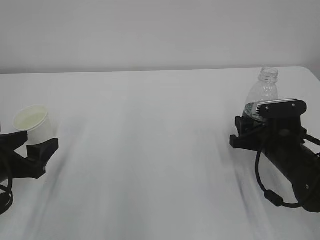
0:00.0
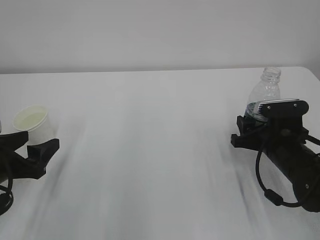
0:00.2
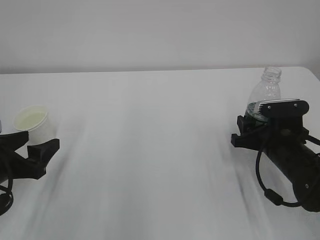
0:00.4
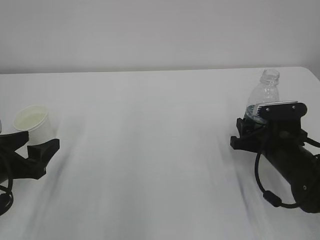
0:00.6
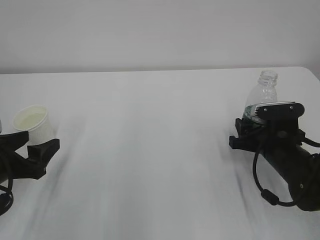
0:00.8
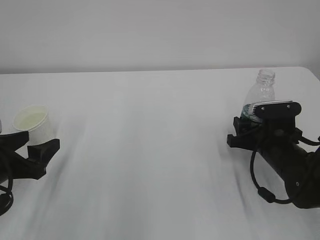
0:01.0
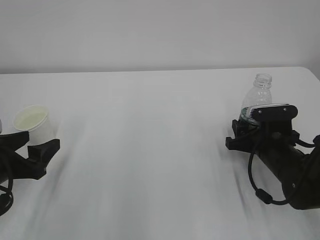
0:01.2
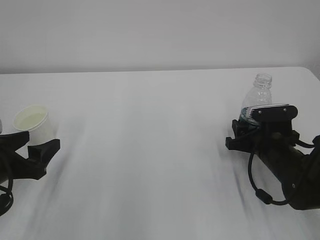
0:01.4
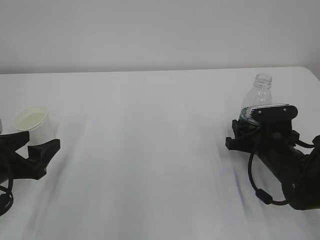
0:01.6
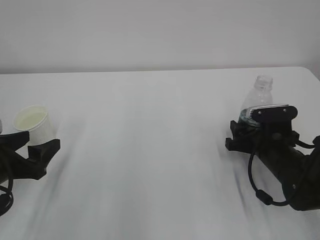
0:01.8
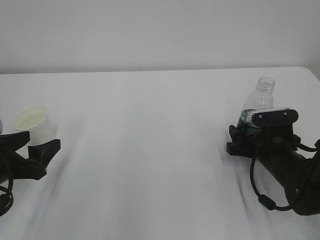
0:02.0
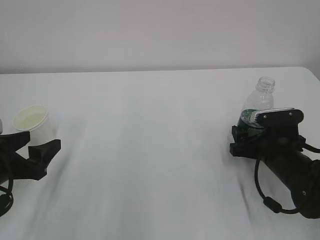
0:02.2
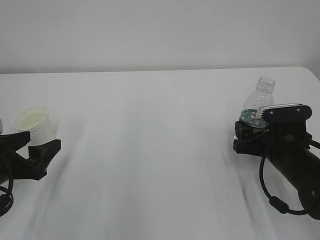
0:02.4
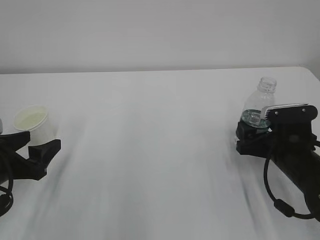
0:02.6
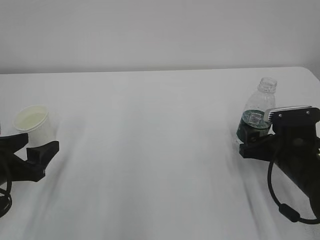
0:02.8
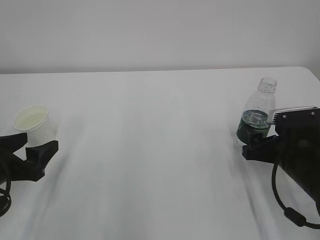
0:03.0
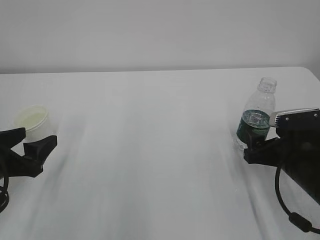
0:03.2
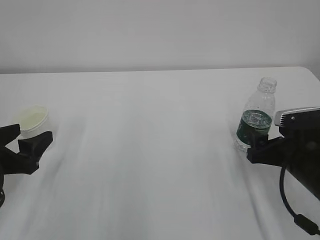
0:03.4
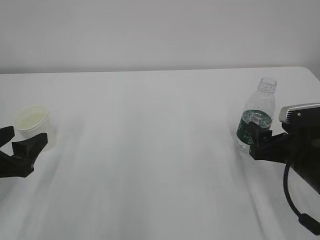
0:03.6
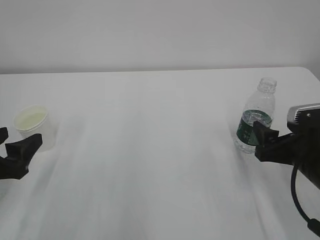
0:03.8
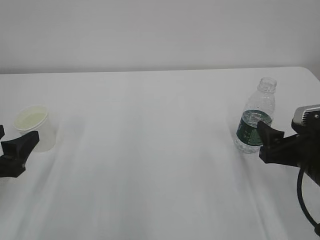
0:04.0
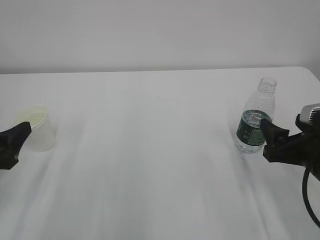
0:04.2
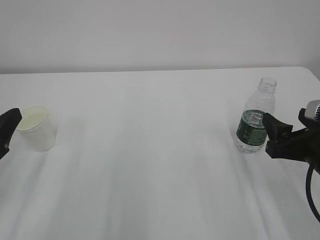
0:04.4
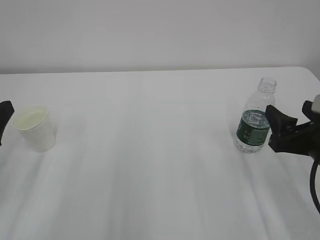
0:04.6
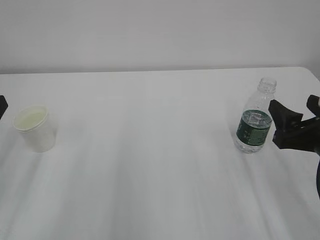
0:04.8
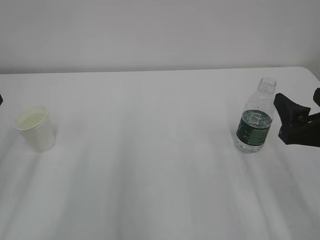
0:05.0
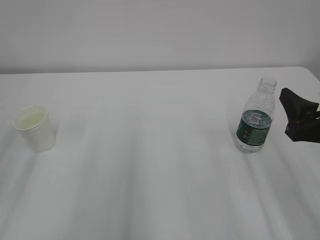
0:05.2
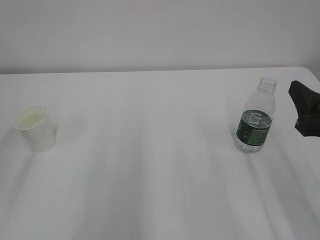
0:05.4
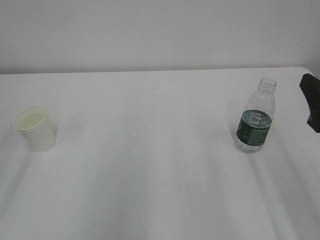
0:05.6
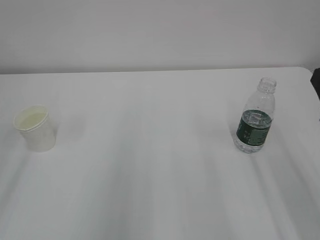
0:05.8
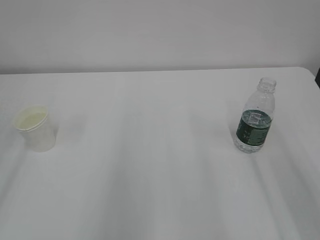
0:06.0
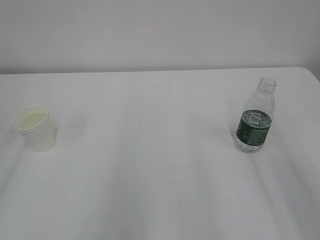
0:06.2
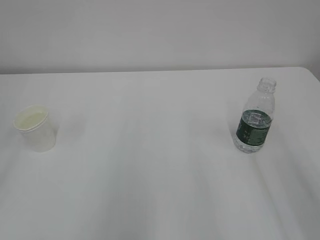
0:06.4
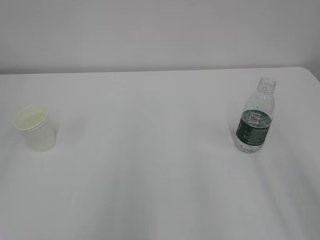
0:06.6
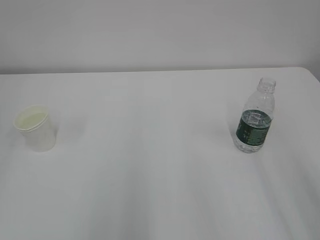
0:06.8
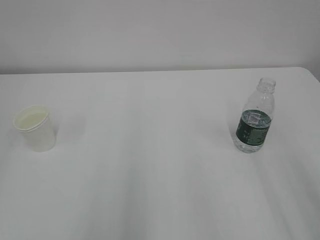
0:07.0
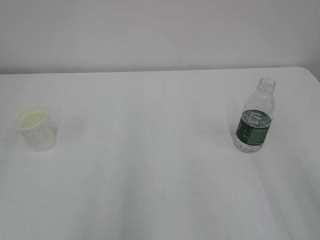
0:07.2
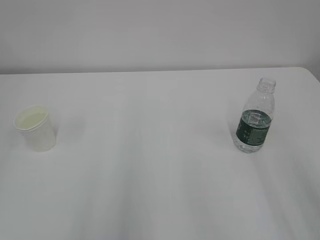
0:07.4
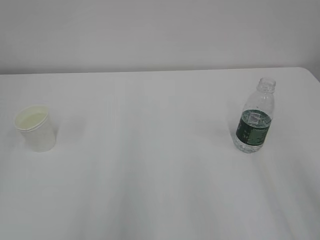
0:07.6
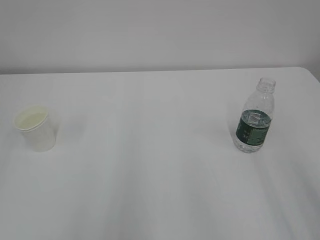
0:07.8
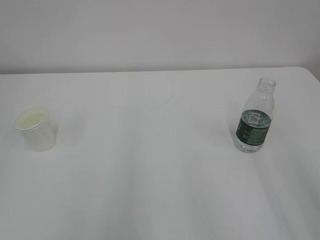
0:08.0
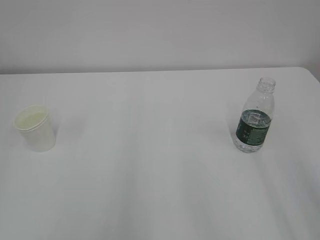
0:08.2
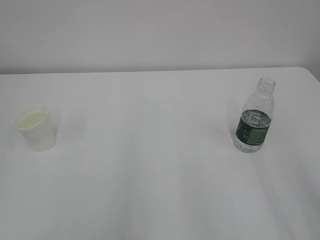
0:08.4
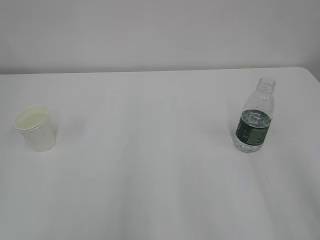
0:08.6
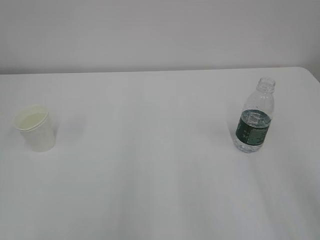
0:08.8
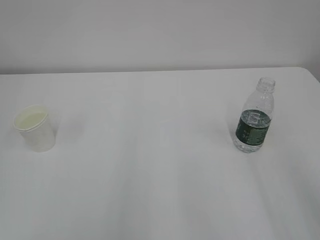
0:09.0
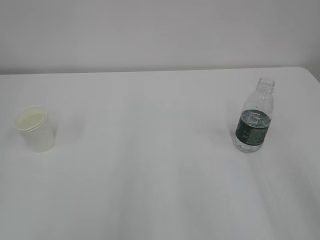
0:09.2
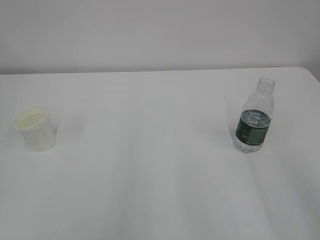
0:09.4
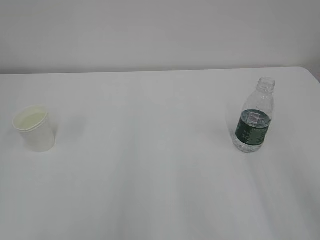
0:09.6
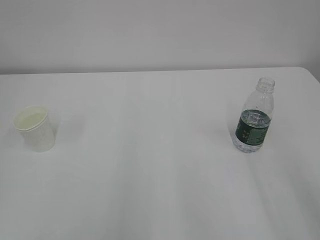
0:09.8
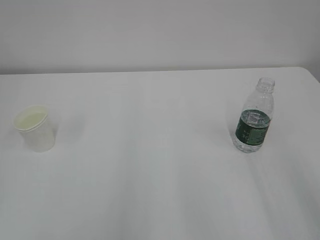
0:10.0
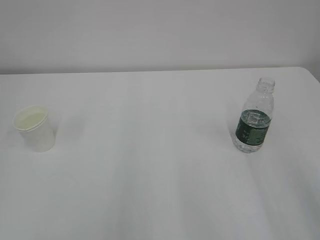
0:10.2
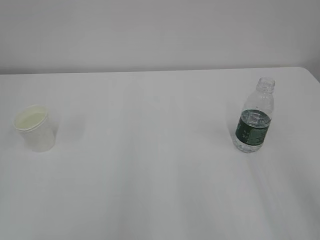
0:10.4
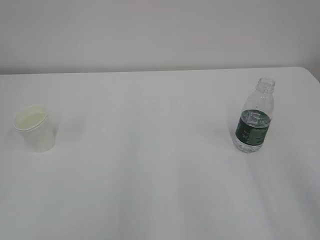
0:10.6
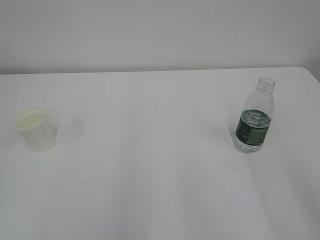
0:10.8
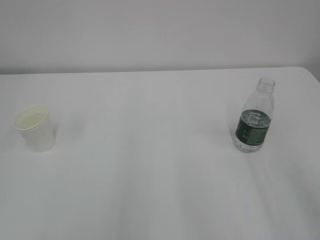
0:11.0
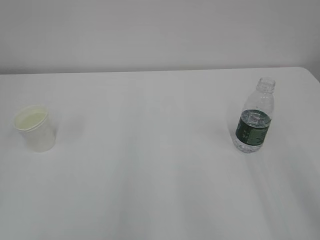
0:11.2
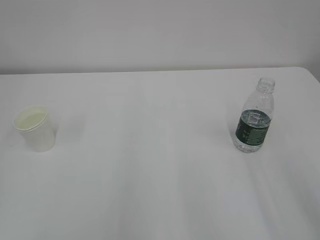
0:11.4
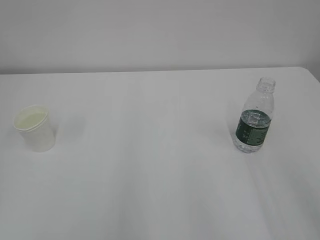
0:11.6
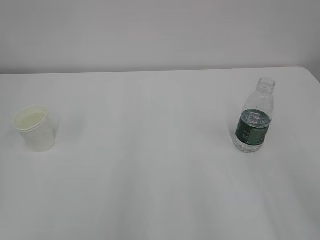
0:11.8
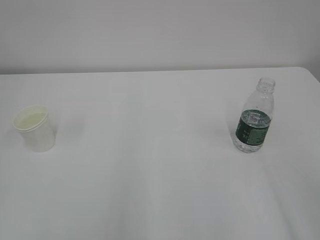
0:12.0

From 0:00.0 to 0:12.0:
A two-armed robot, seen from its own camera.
From 0:00.0 to 0:01.6: There are only small adjustments of the grippers.
From 0:01.6 to 0:03.0: The right gripper changes place by roughly 5 cm, and opens.
From 0:03.0 to 0:04.4: Both grippers move upward, about 5 cm.
From 0:04.4 to 0:06.0: The two grippers go roughly 15 cm upward and backward.
From 0:09.0 to 0:10.4: Both grippers stay about where they are.

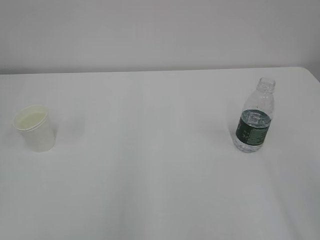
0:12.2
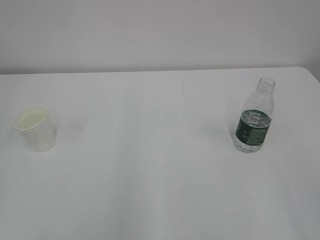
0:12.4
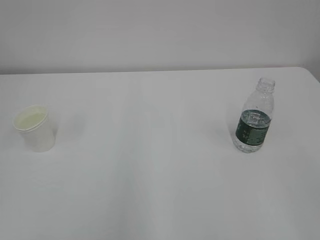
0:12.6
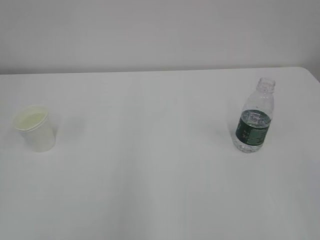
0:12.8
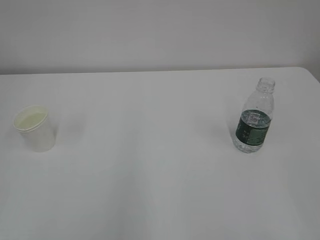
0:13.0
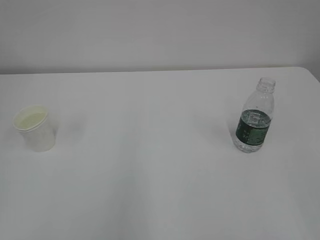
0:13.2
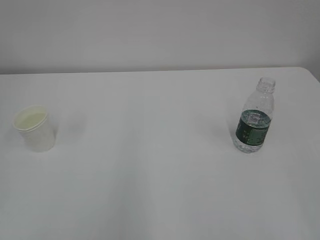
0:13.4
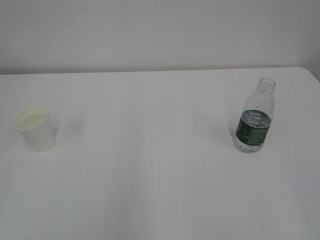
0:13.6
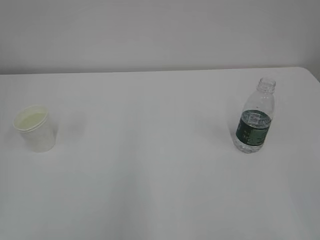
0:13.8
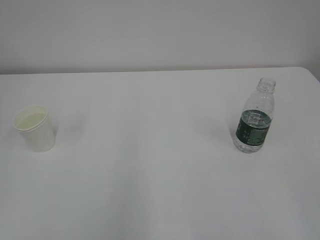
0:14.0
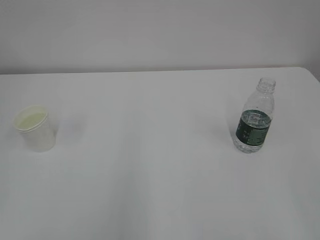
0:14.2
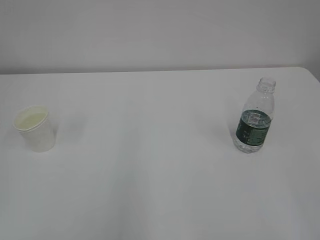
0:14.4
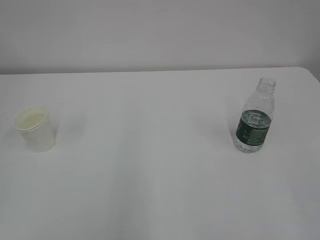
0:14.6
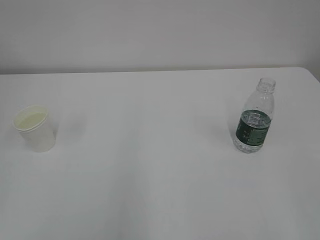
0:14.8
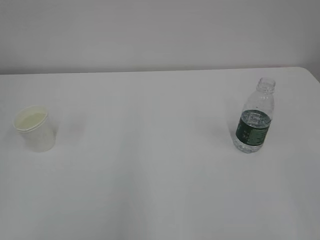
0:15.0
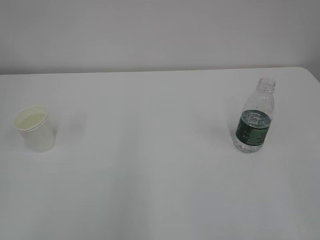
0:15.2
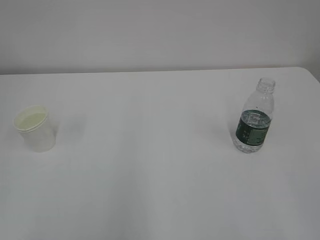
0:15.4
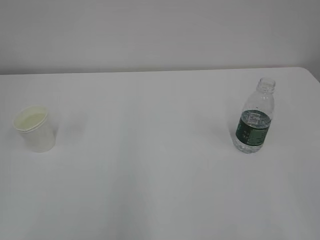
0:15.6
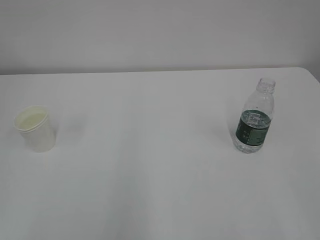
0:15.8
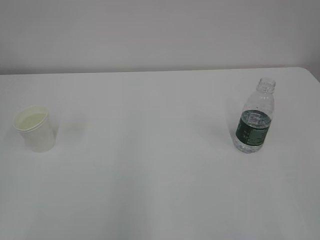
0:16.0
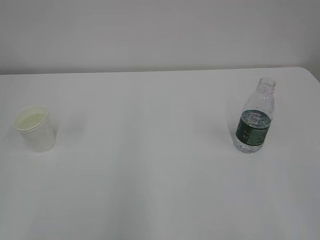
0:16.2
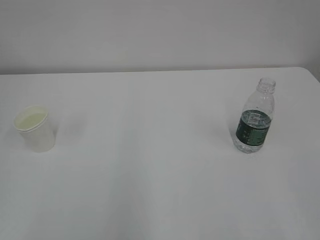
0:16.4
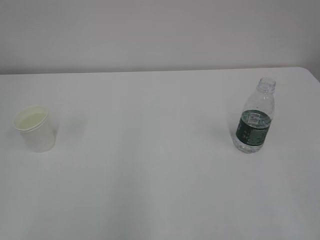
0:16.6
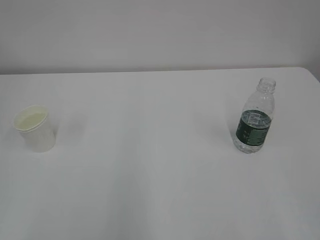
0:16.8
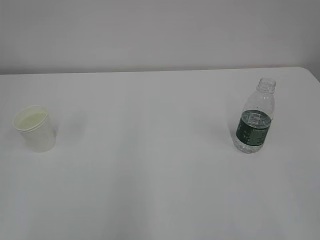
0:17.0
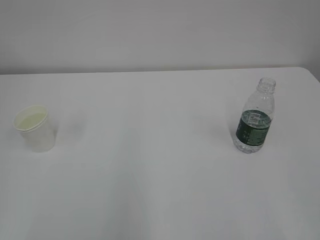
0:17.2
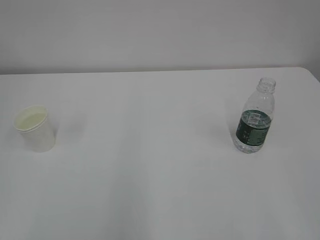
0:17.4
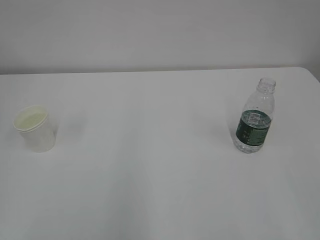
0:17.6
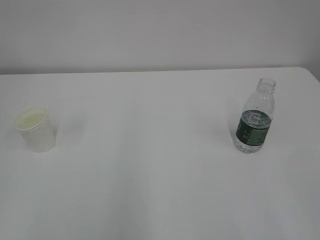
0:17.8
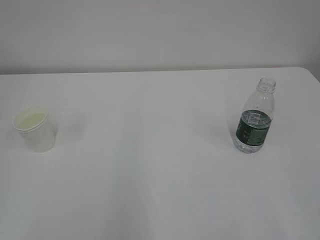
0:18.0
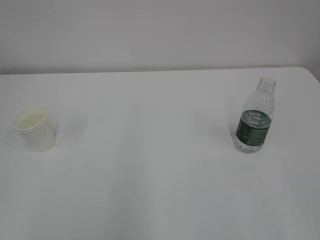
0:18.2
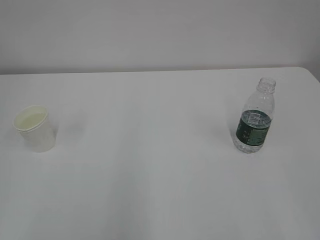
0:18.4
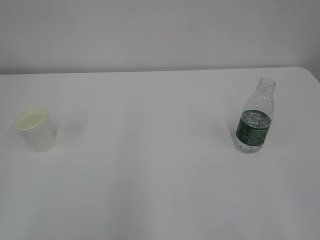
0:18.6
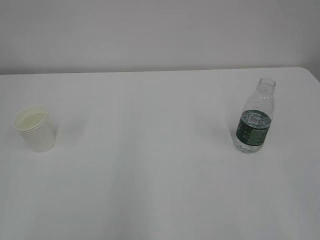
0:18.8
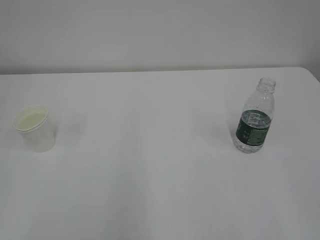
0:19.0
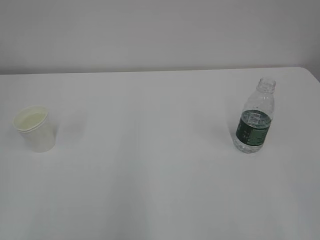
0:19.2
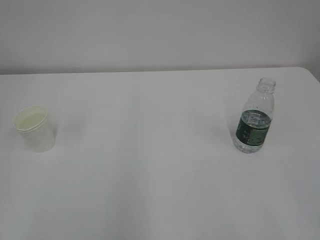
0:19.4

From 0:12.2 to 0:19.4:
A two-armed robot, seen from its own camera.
From 0:13.6 to 0:15.0: The two grippers keep their place.
From 0:16.6 to 0:19.4: The two grippers keep their place.

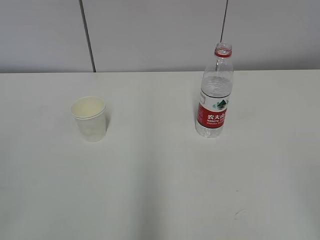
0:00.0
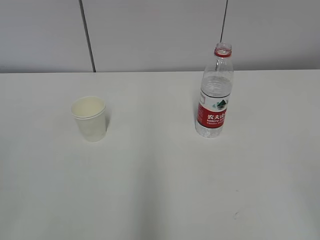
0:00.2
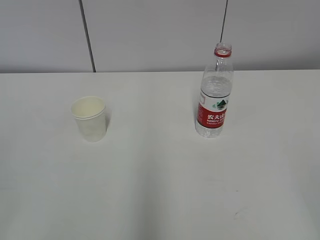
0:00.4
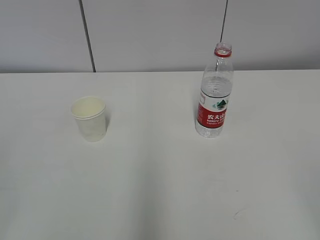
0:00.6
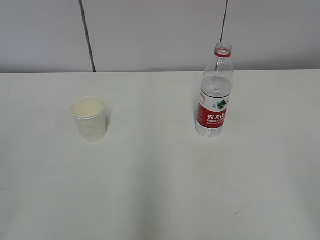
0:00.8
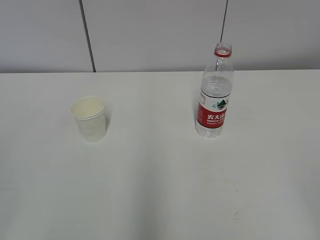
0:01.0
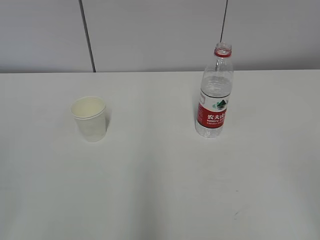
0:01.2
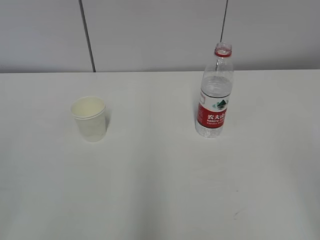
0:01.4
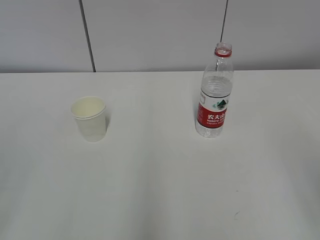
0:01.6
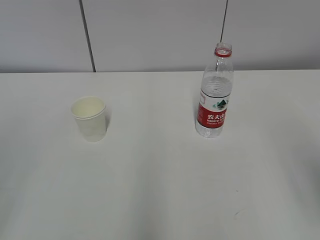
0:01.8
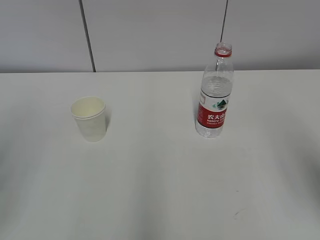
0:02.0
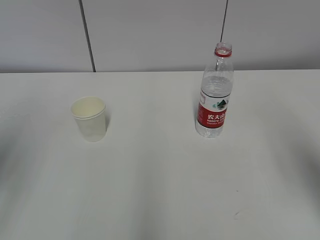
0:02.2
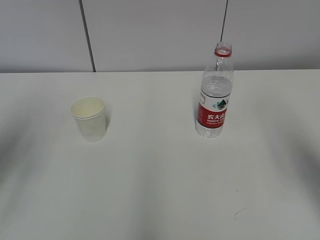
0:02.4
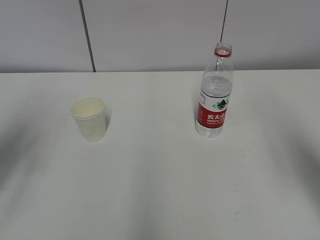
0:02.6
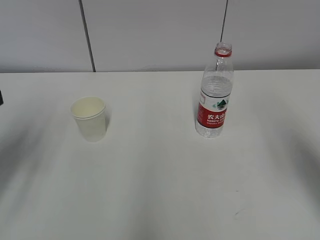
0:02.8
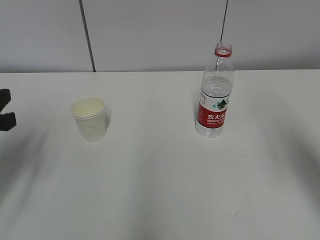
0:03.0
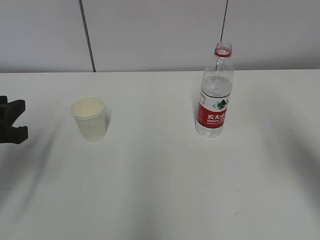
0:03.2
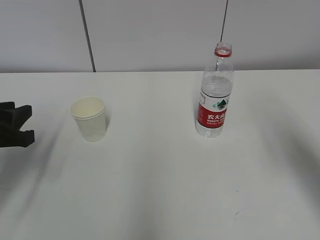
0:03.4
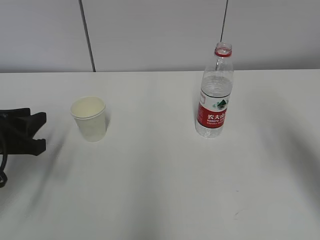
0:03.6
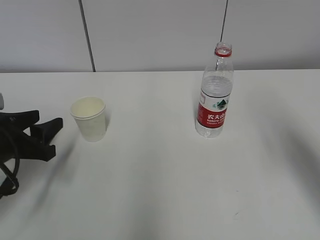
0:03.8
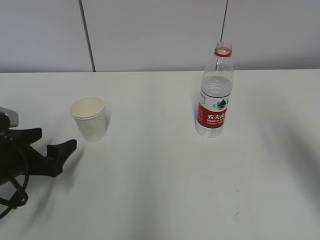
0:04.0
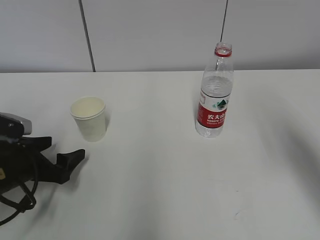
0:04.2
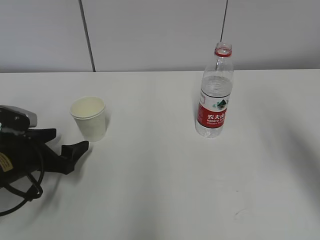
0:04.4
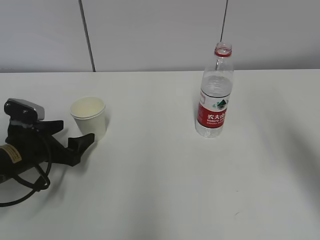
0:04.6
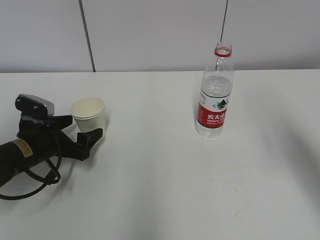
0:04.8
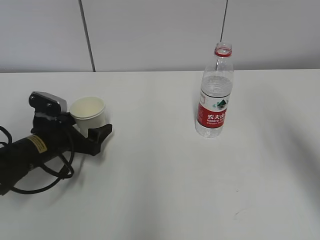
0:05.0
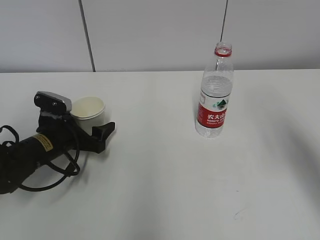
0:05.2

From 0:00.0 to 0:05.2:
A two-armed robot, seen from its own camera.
From 0:01.8 to 0:03.4: The left gripper heads forward and downward, covering some 25 cm.
From 0:03.4 to 0:05.2: The left gripper is displaced downward, forward and to the right by approximately 15 cm, and opens its fingers.
